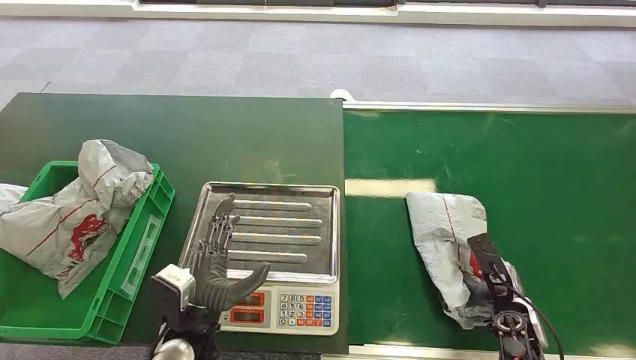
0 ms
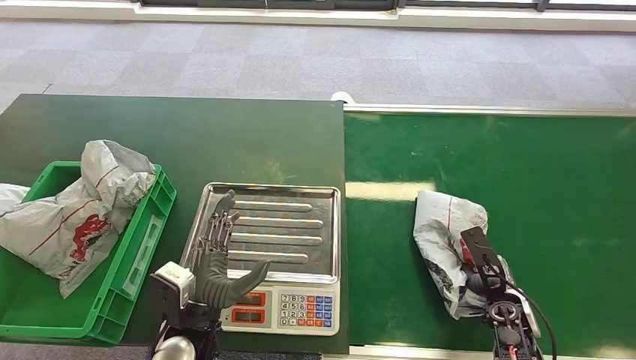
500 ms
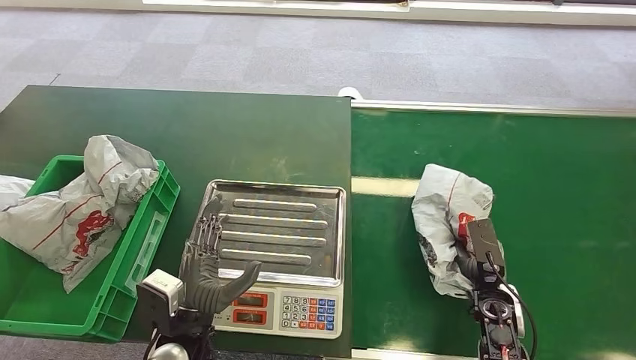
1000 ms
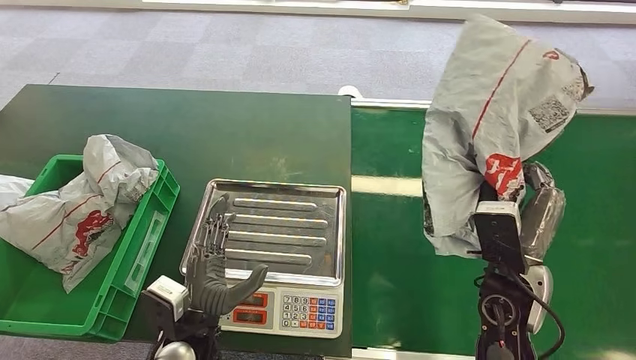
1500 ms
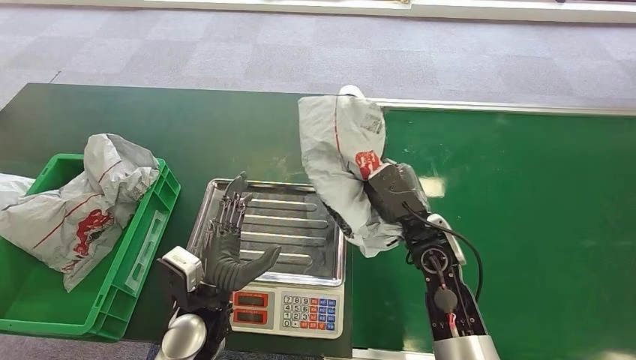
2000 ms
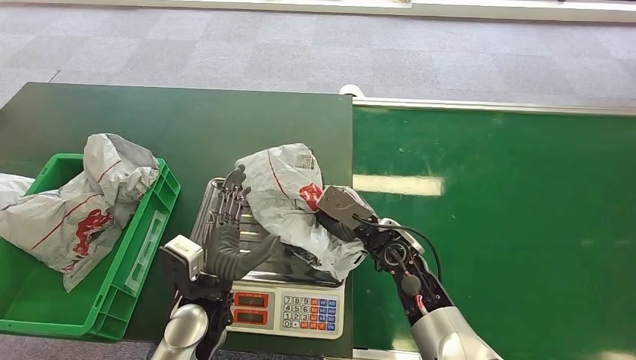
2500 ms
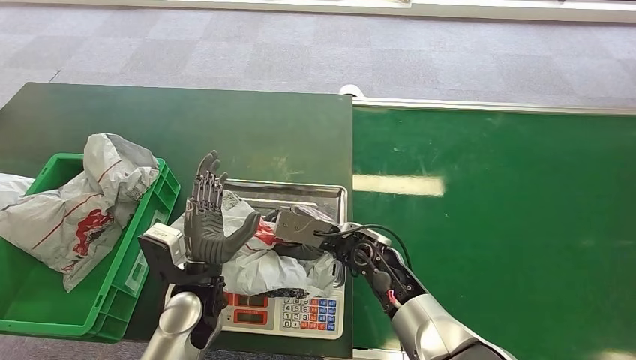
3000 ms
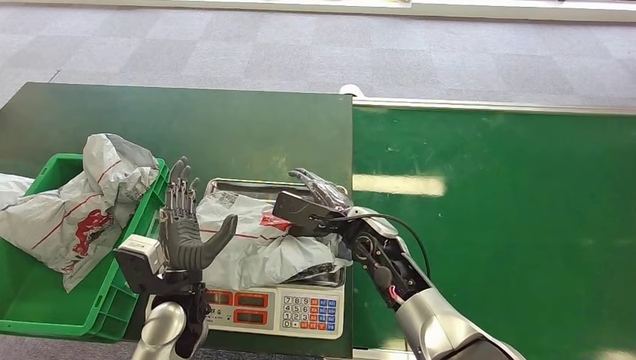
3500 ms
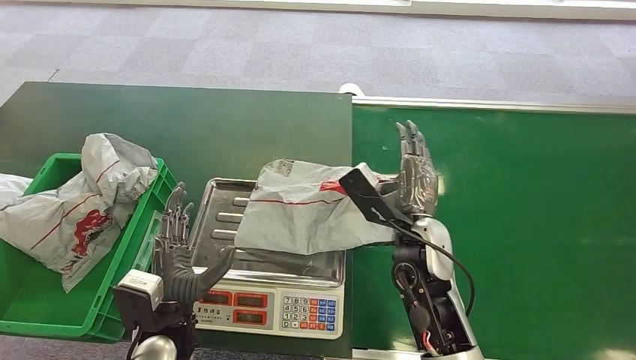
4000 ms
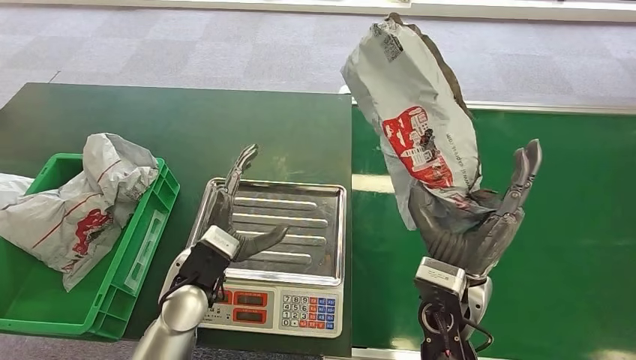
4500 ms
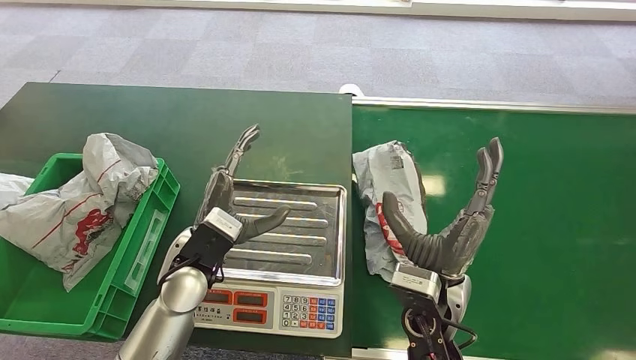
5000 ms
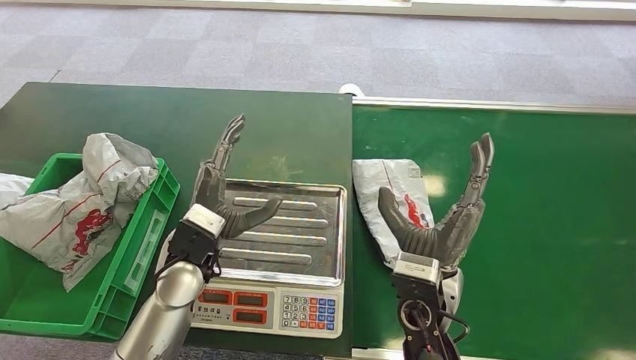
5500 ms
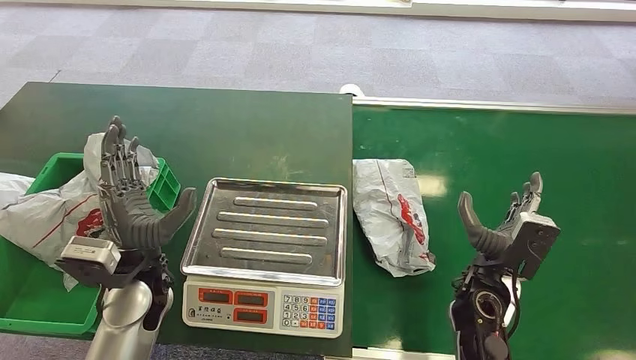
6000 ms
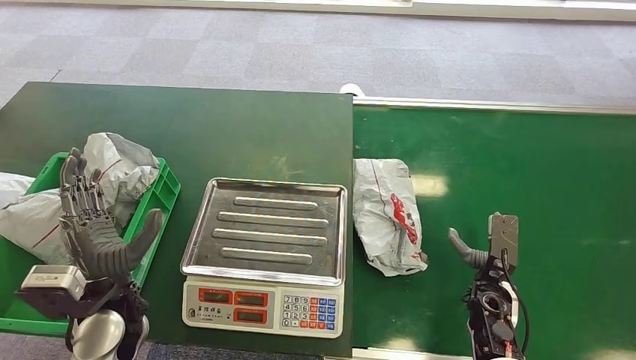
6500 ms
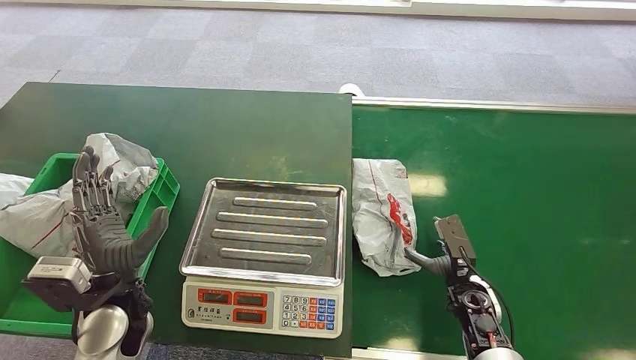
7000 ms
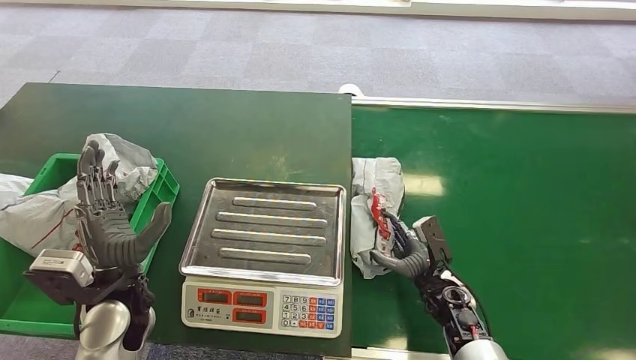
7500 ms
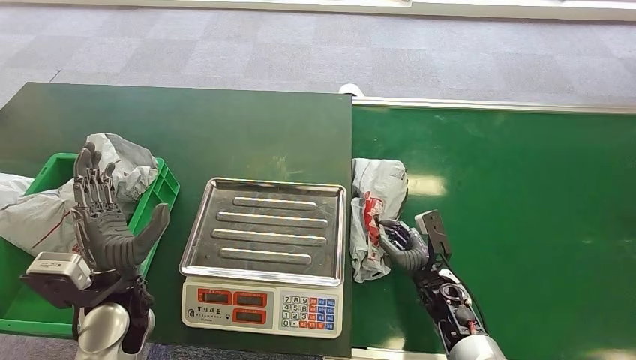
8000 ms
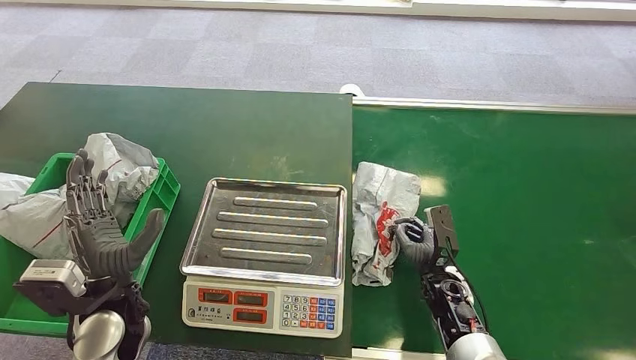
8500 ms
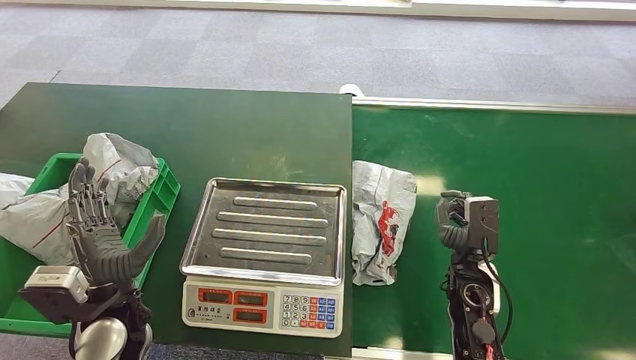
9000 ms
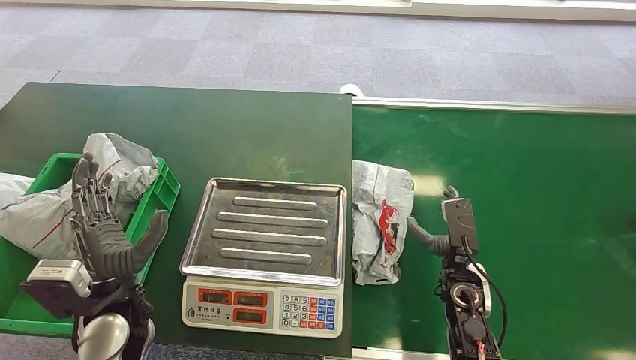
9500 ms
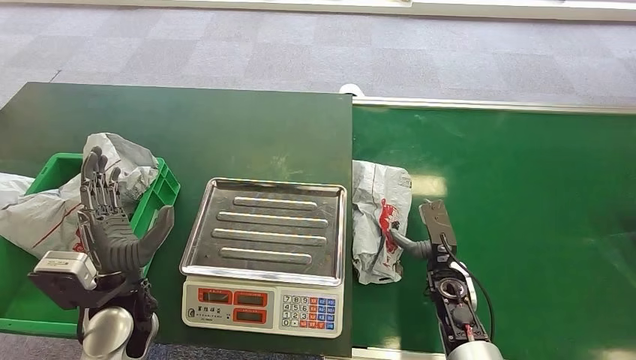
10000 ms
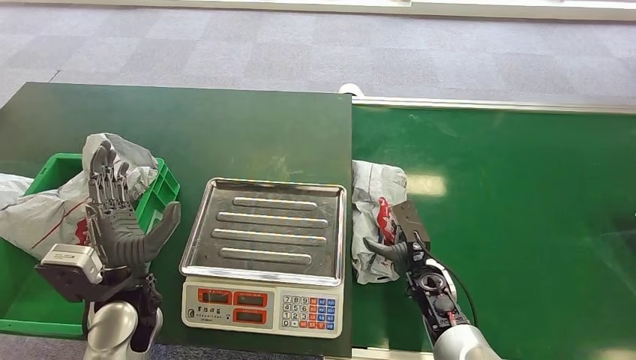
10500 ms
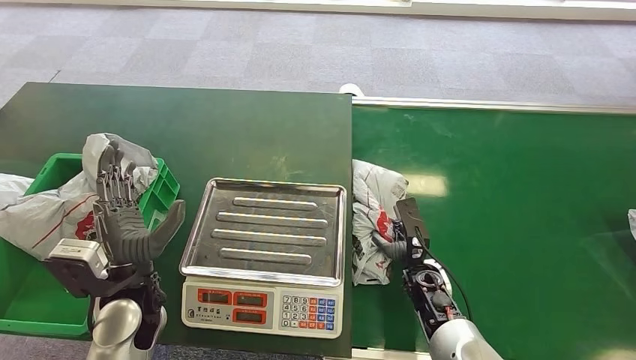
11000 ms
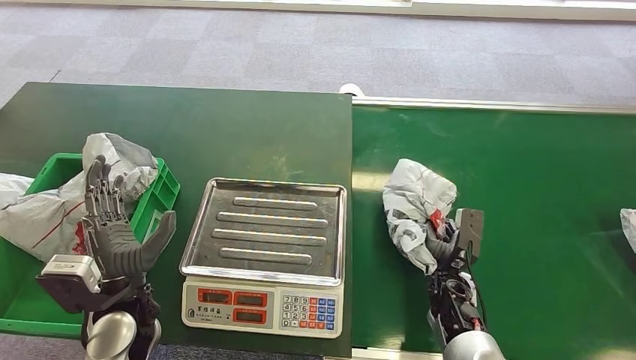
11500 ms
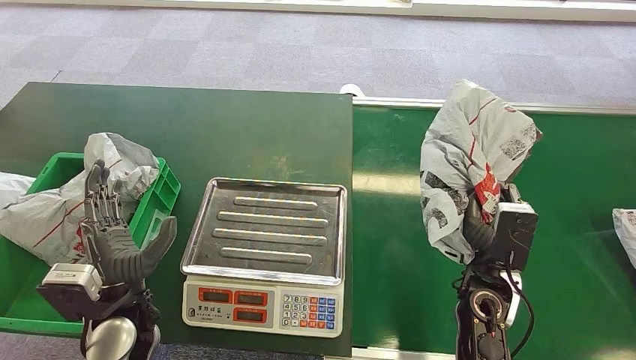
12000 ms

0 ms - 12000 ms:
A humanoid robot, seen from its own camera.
Step, 0 ms - 1000 ms: Pick up the package from the conveyor belt.
6000 ms - 8000 ms: The right hand shifts roughly 10 cm downward.
10000 ms - 12000 ms: The right hand moves upward, approximately 10 cm.

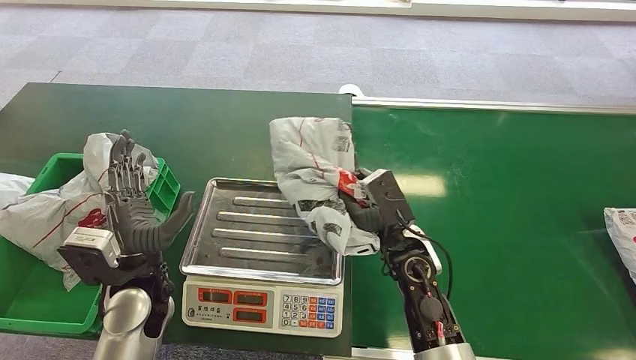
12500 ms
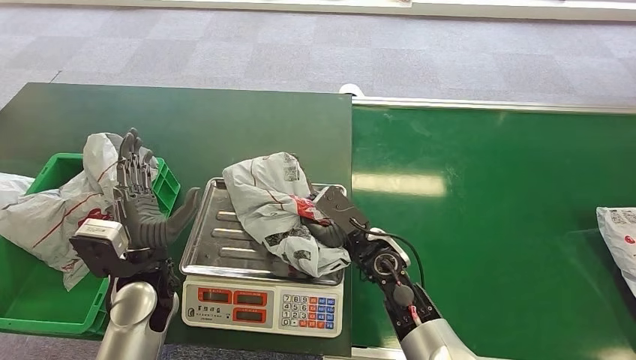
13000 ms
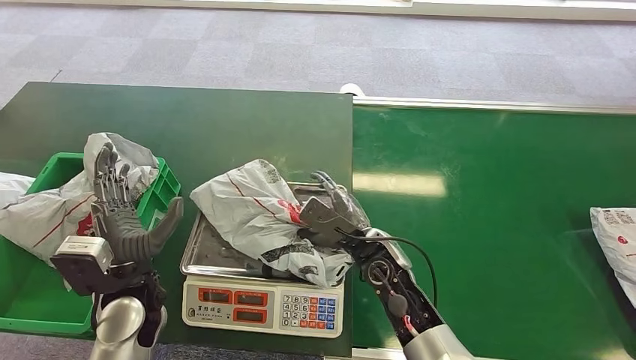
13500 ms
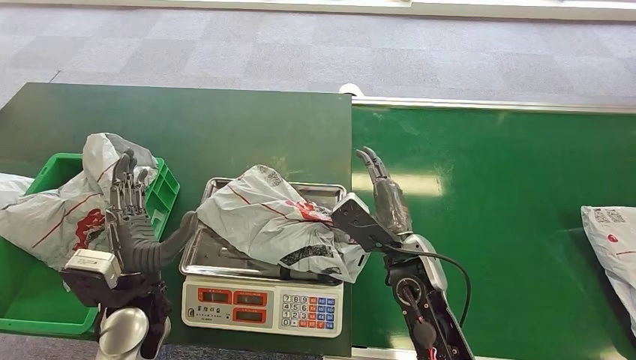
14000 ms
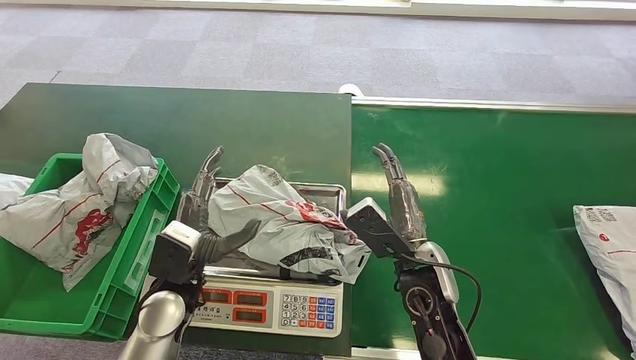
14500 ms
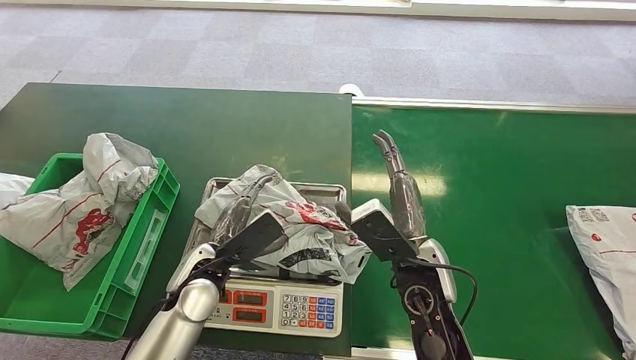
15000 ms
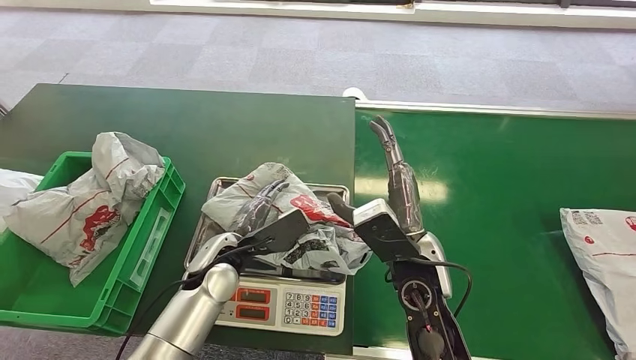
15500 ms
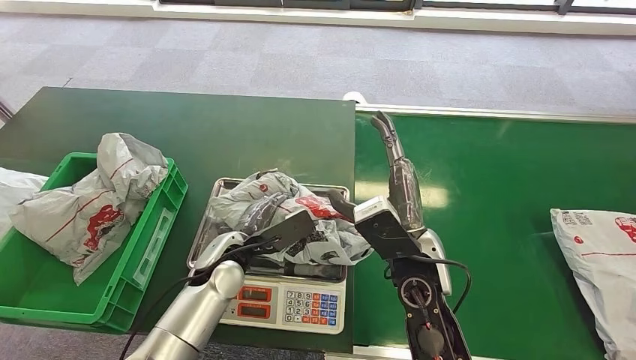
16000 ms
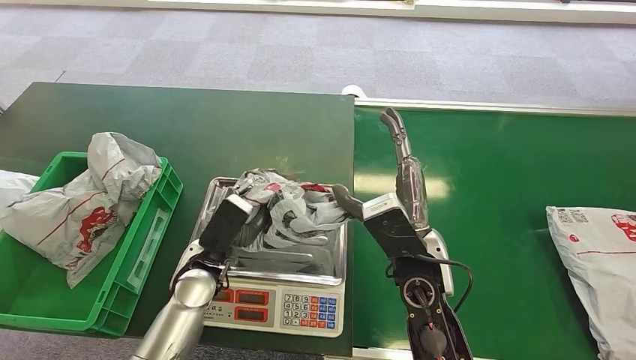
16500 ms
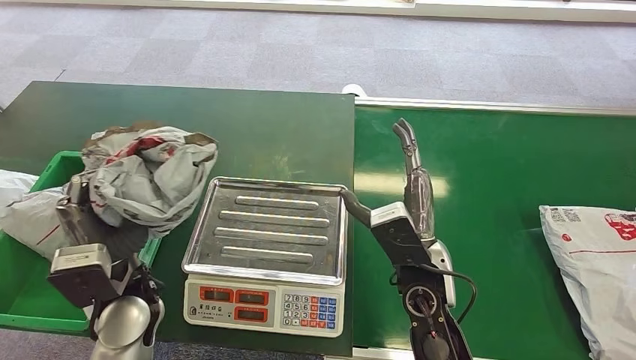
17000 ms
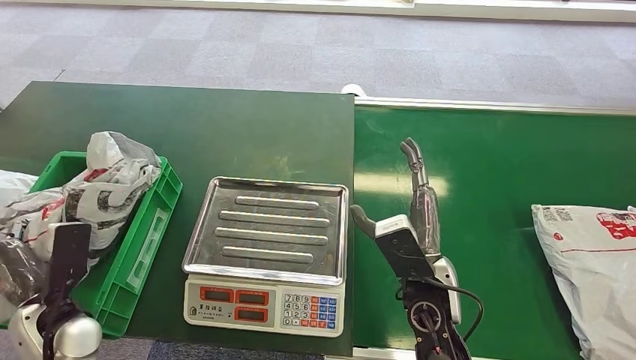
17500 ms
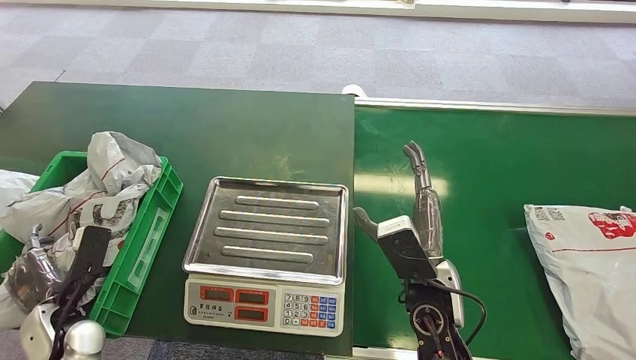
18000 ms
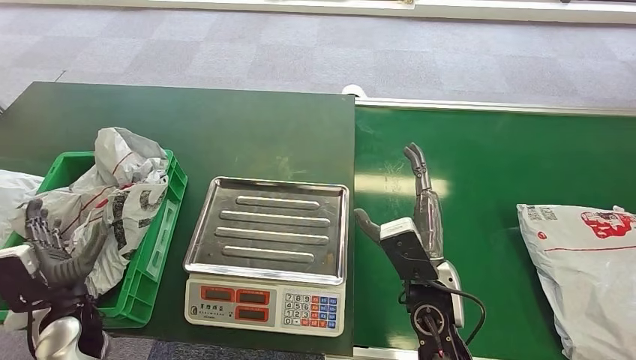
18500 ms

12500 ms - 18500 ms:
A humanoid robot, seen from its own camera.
Step, 12500 ms - 13500 ms: Place the package onto the inbound machine.
Step, 16000 ms - 17000 ms: Pick up the package from the inbound machine.
Step, 17500 ms - 18500 ms: Place the package into the parcel locker.
